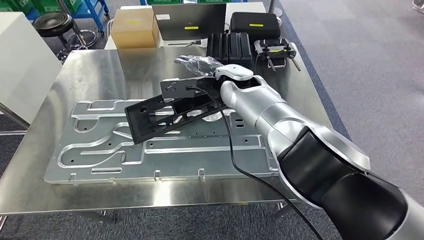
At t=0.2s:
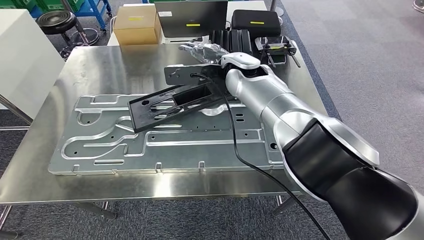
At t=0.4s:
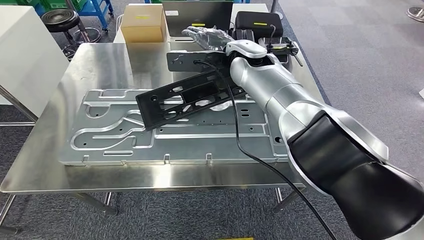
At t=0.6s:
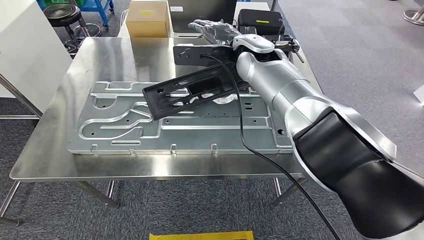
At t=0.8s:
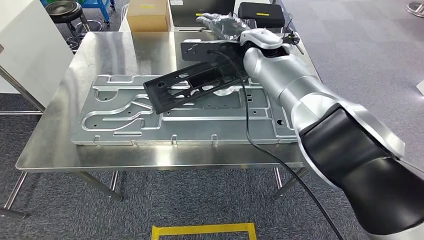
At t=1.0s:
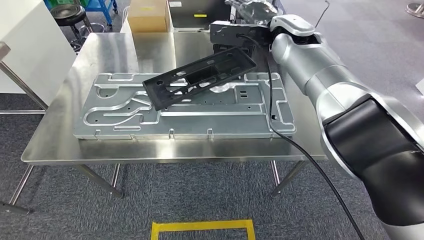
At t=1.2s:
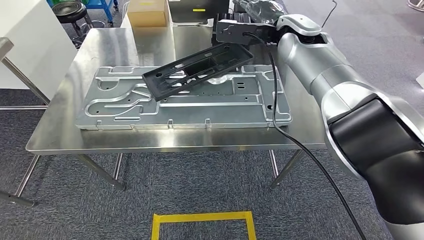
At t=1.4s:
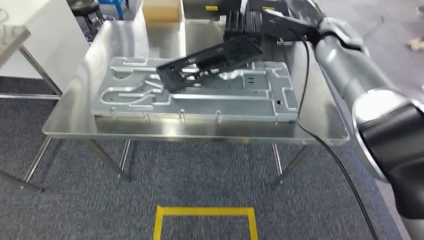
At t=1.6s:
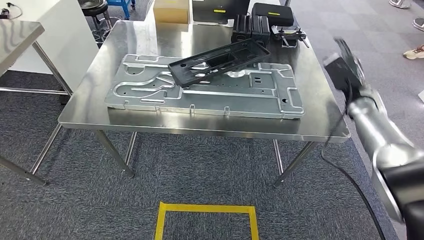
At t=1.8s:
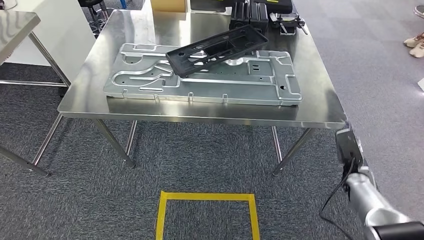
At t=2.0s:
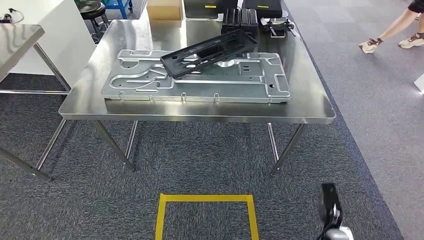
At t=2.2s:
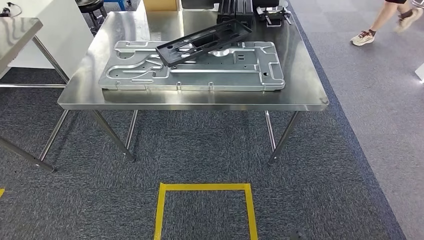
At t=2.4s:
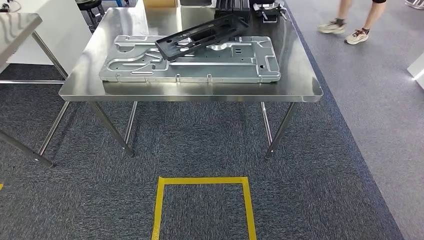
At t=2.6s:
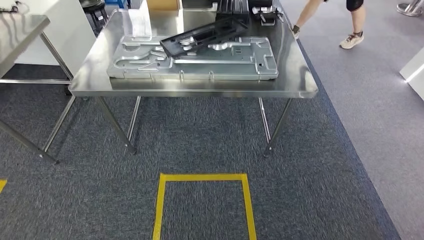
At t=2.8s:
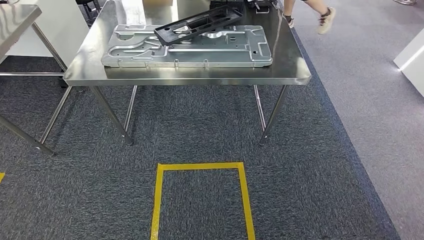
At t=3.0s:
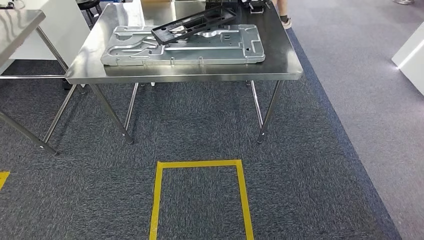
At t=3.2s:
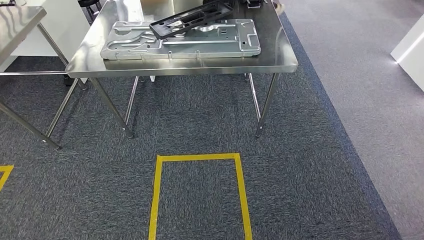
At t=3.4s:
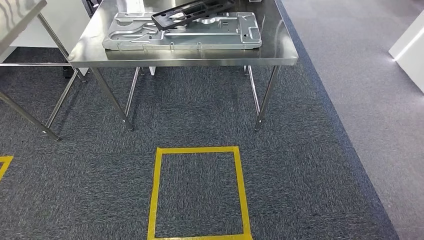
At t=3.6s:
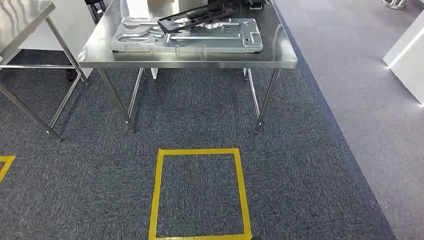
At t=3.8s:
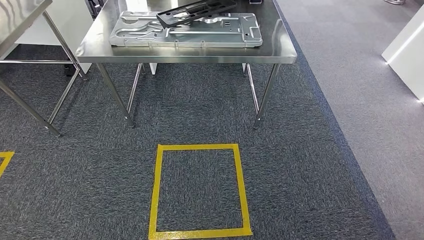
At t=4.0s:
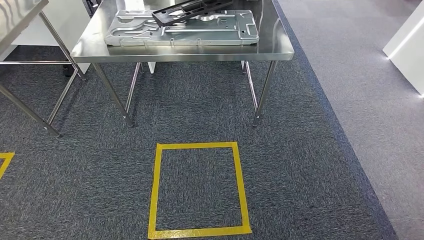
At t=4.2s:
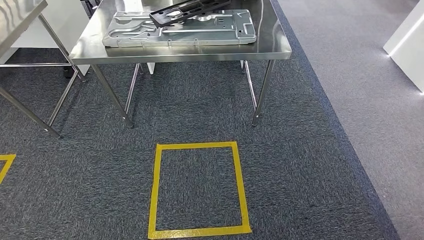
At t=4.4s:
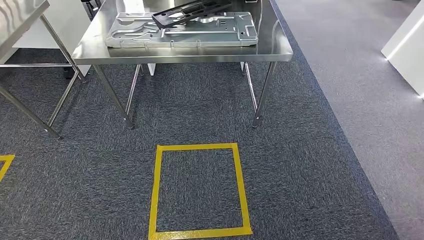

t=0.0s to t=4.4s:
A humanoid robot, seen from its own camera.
Step, t=0.0s to t=3.0s: Insert the large material into the corresponding slot on the workbench.
Step, t=3.2s to t=4.2s: Move to the initial position of the shelf.
